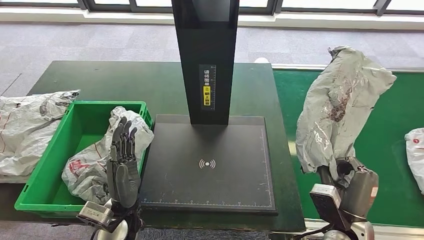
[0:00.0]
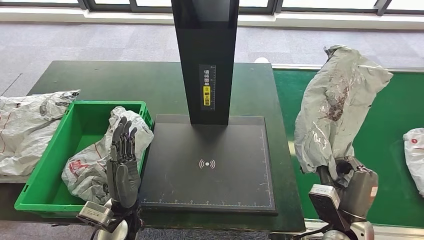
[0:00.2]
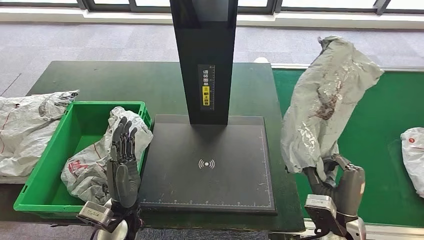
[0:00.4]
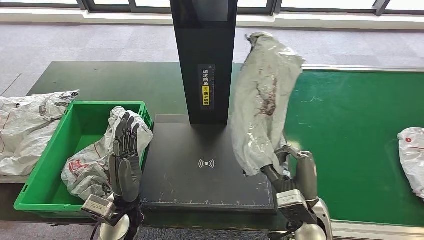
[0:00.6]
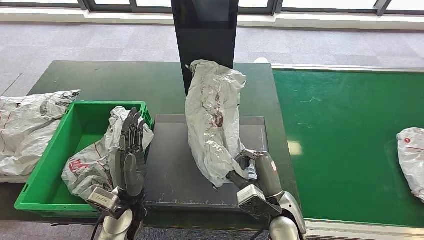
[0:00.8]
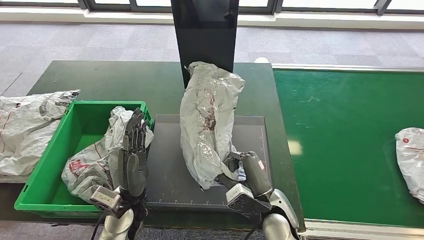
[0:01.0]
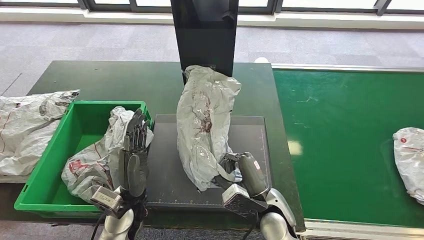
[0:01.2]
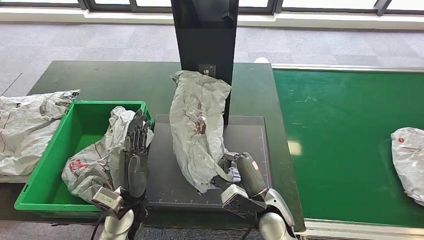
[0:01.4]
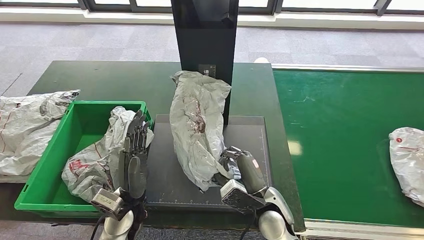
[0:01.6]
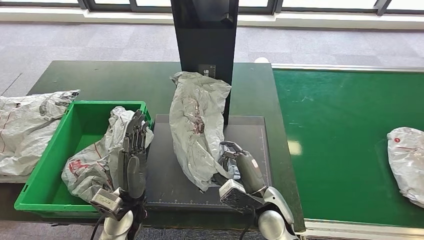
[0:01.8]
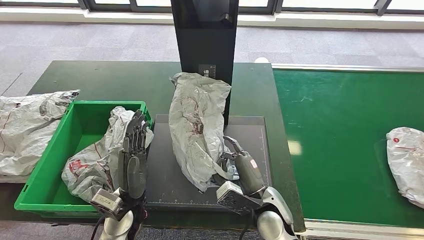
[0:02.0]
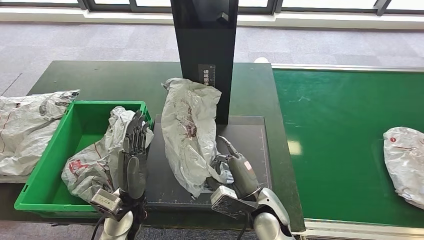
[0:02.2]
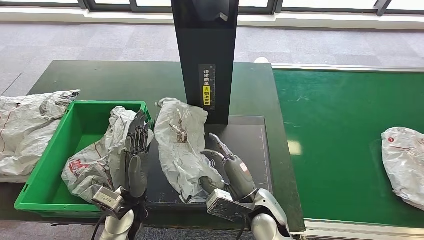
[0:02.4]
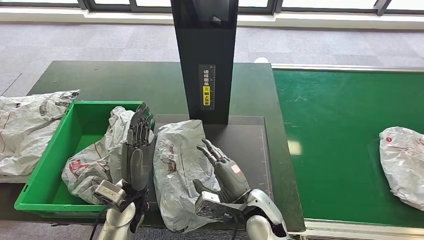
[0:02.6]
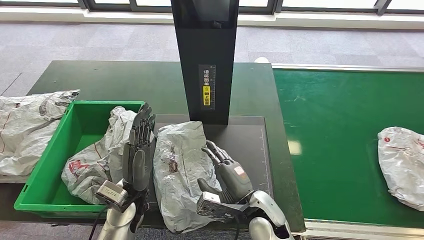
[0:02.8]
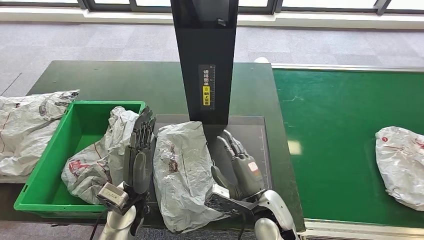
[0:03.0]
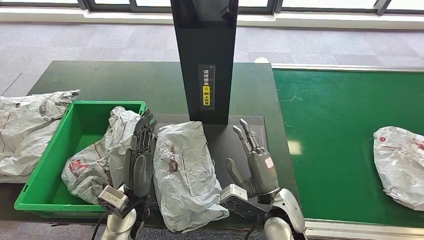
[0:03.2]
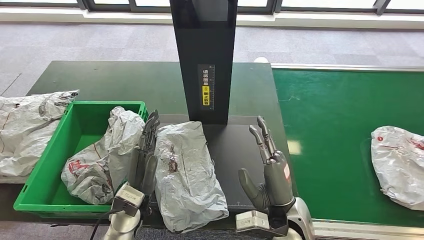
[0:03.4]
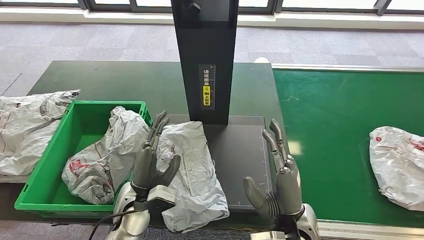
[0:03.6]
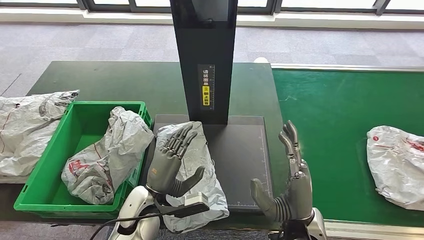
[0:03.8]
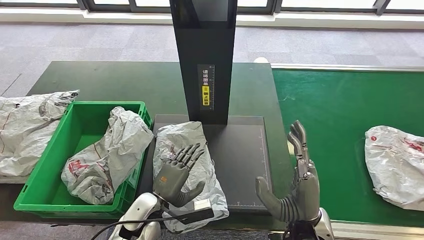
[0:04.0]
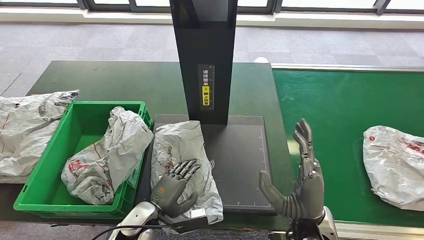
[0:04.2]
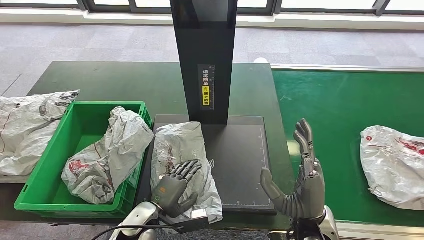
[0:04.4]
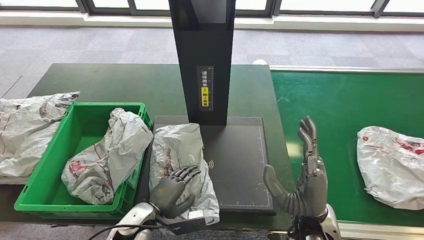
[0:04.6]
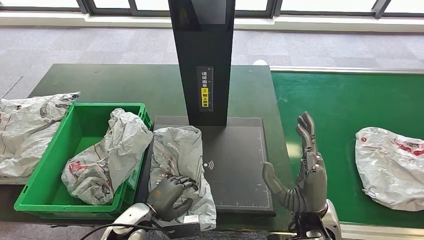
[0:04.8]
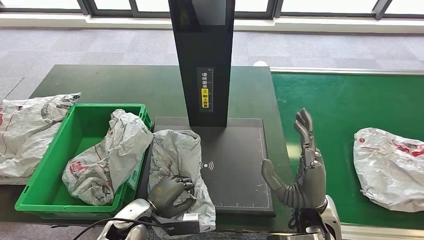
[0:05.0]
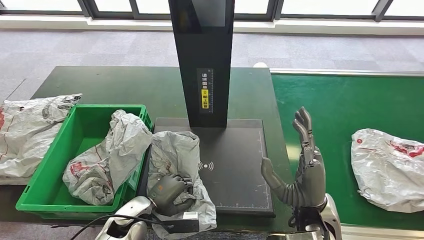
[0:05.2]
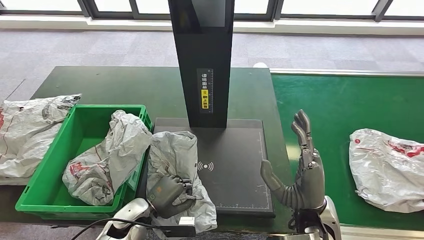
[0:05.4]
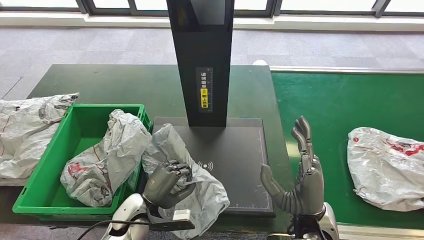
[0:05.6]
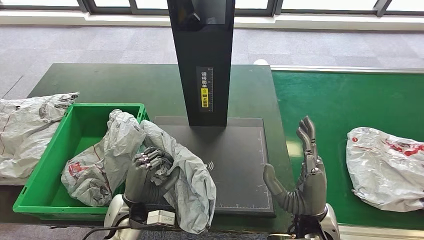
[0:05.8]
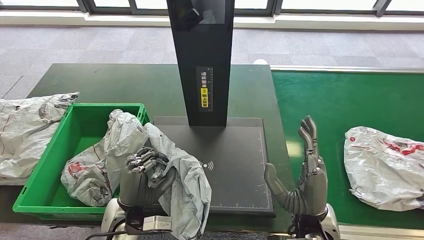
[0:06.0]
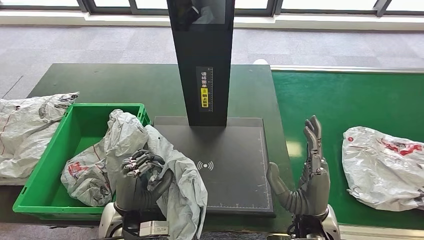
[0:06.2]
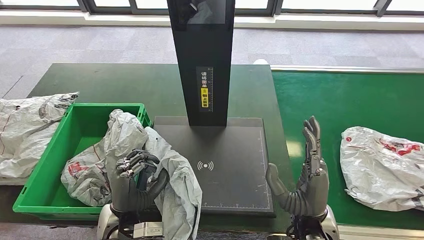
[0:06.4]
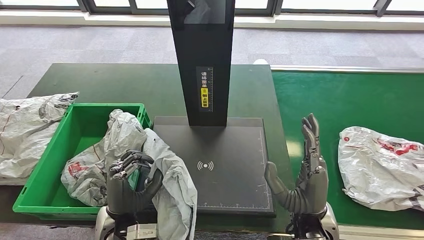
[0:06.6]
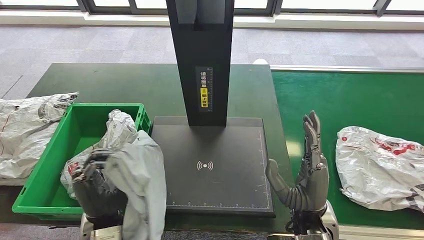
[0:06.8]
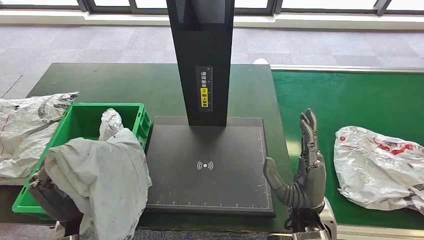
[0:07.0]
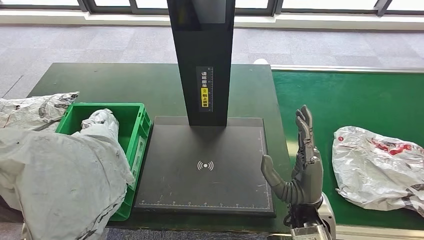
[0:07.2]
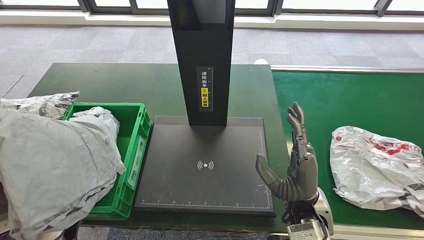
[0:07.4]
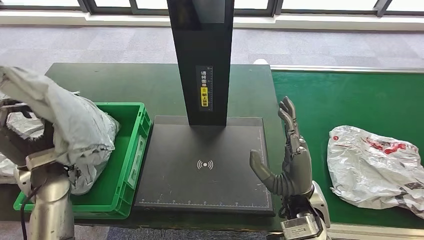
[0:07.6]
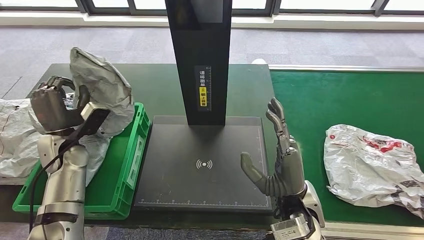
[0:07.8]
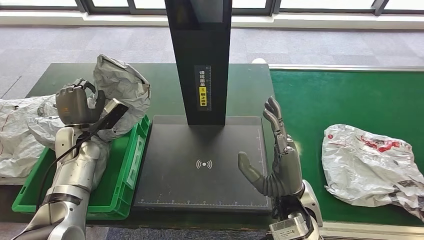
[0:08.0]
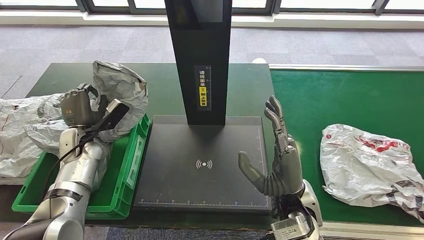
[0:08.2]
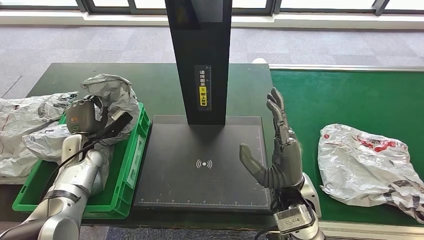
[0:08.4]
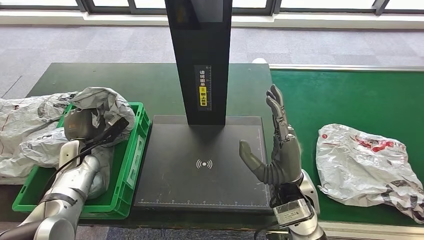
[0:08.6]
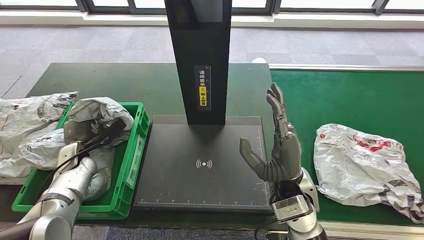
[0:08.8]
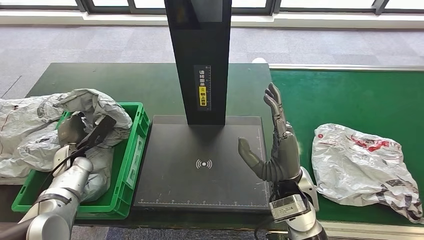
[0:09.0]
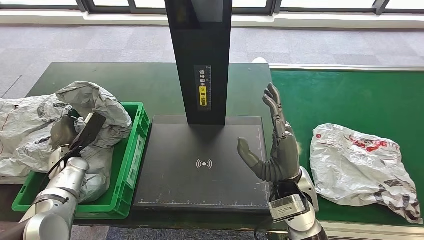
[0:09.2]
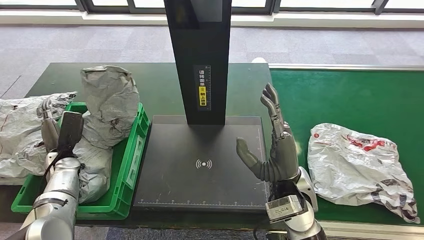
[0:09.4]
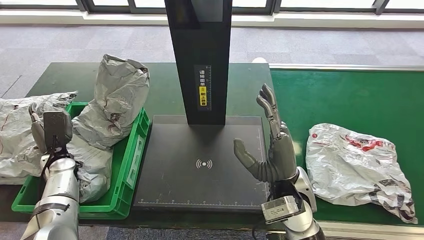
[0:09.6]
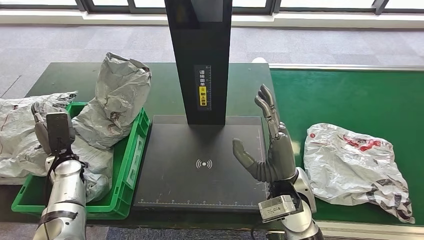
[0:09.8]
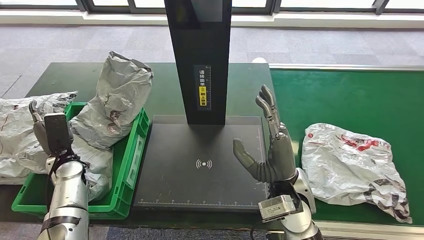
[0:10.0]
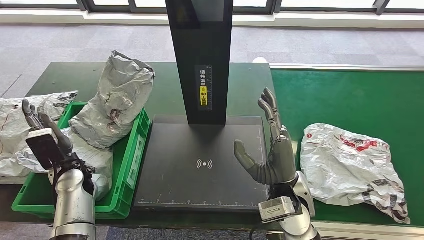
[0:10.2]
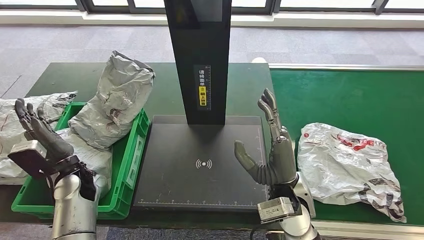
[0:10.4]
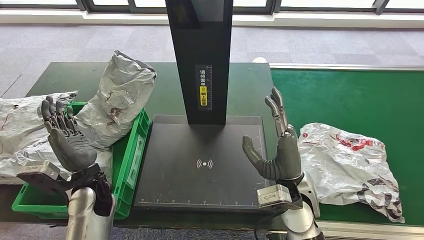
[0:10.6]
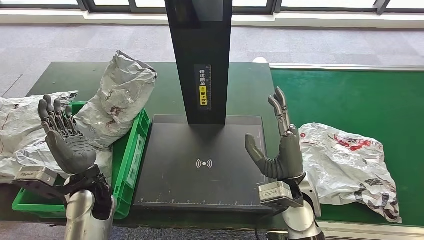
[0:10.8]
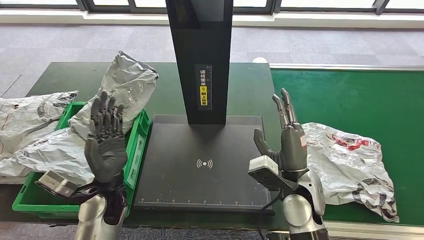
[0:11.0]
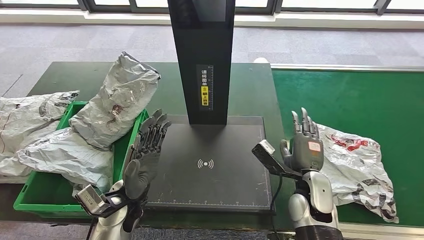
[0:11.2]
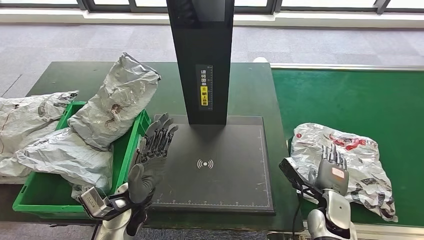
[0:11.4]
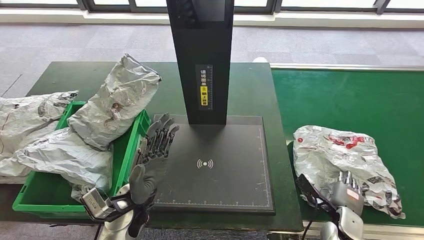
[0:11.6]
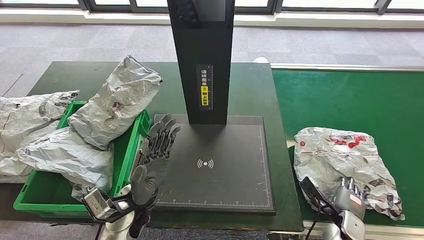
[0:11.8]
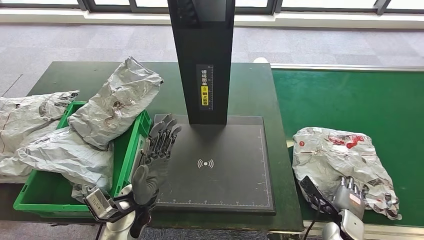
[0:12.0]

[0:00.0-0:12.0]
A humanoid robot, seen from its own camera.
Step, 0:00.4 to 0:04.2: Place the parcel onto the inbound machine.
Step, 0:04.4 to 0:07.4: Pick up the parcel from the inbound machine.
Step, 0:07.6 to 0:10.4: Place the parcel into the delivery box.
0:01.6 to 0:03.0: The hands move only a little.

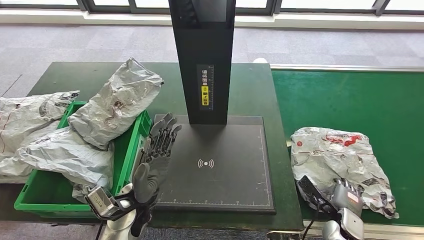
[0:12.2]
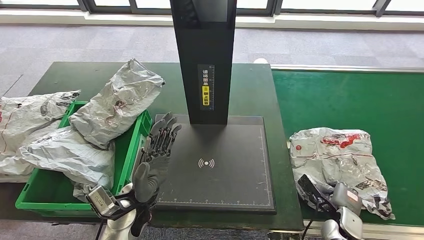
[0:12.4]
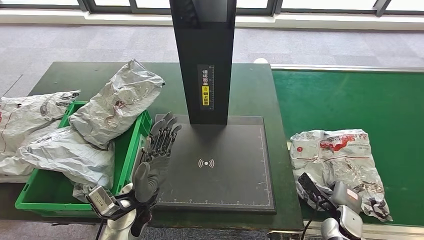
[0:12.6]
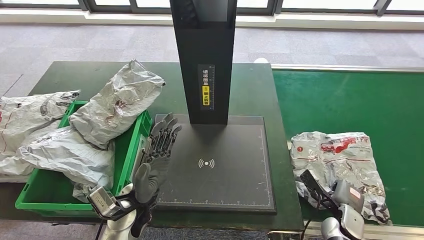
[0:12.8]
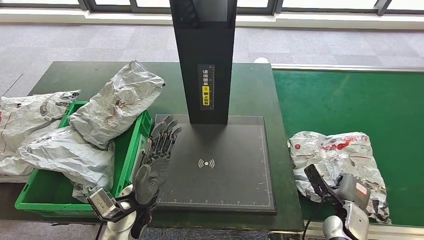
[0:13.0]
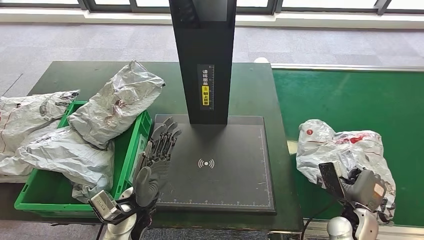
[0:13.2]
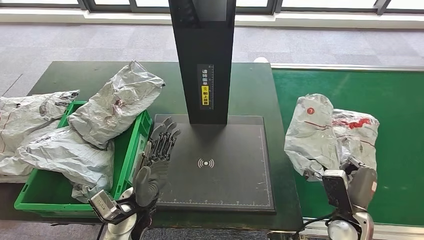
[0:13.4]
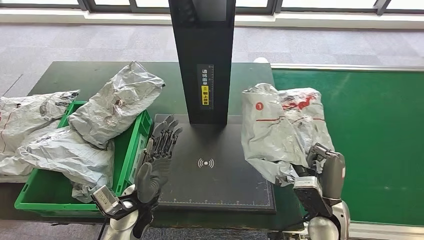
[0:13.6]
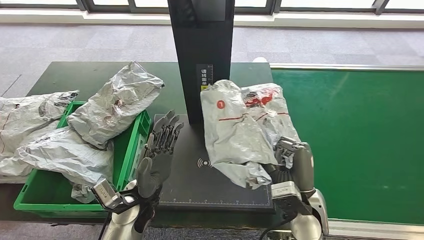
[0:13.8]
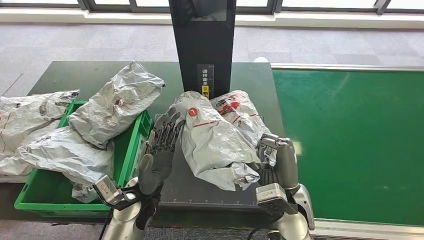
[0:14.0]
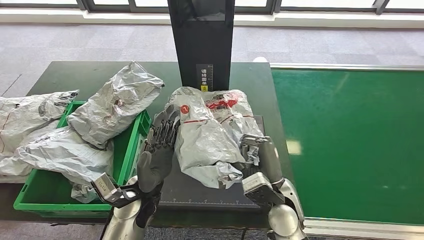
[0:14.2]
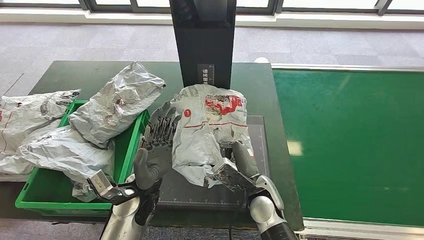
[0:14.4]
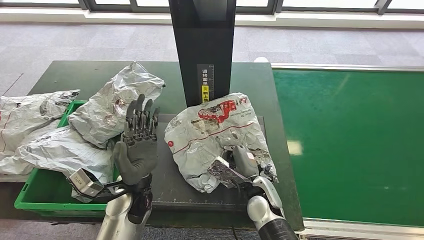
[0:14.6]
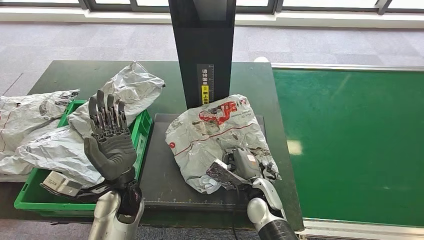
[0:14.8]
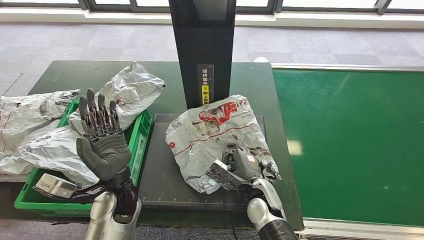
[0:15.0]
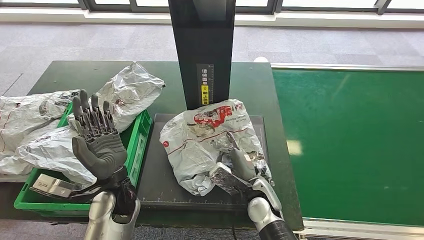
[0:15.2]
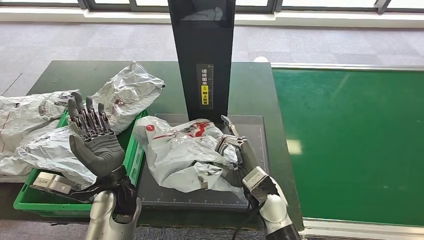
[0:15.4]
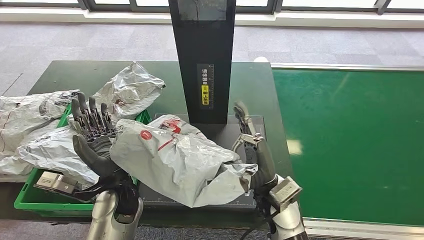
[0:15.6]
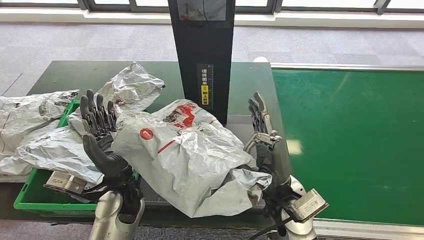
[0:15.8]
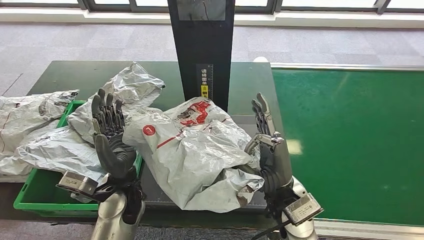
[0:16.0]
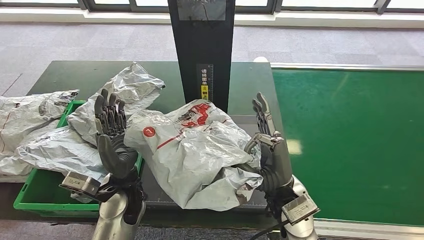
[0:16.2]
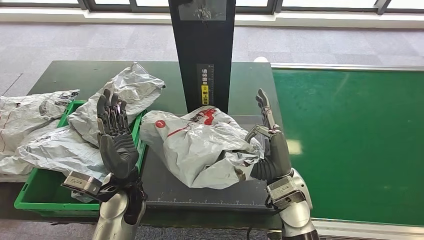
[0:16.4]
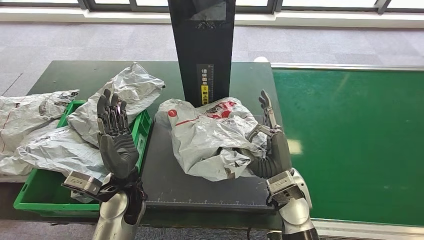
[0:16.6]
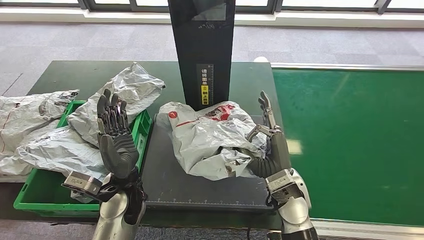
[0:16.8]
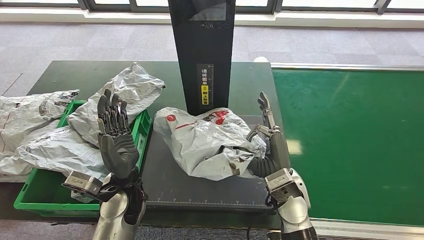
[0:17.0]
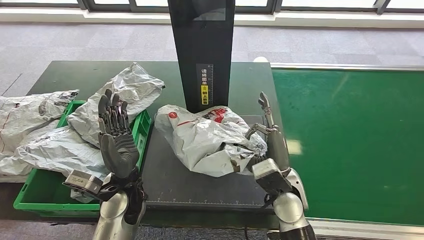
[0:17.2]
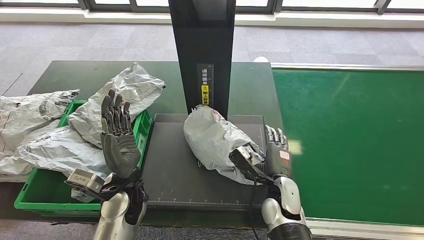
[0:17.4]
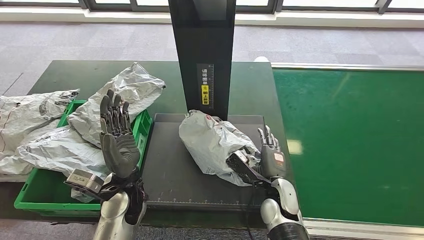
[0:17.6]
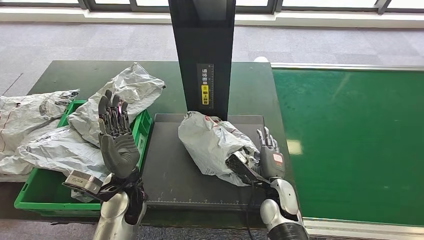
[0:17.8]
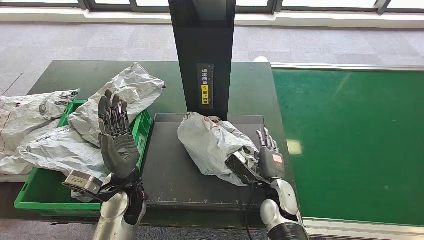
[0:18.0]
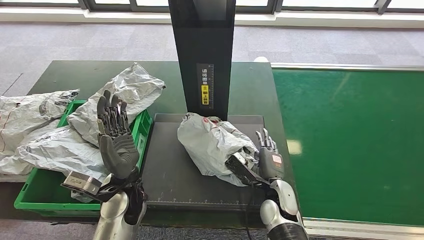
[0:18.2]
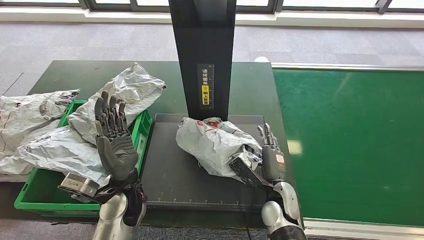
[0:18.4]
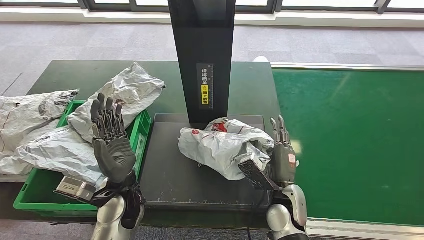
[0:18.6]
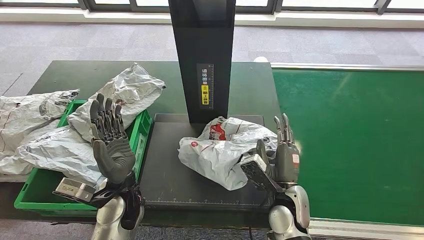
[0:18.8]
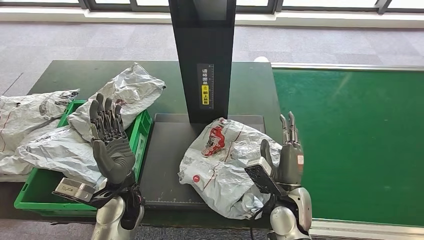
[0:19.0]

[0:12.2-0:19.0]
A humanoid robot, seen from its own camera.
Step, 0:12.2 to 0:13.8: Pick up the parcel from the conveyor belt.
Step, 0:14.0 to 0:16.8: Place the parcel onto the inbound machine.
0:16.2 to 0:17.6: The right hand is displaced downward by approximately 10 cm.
